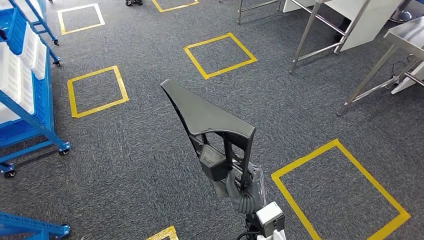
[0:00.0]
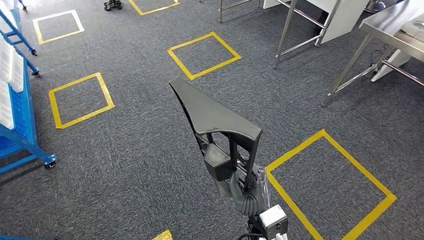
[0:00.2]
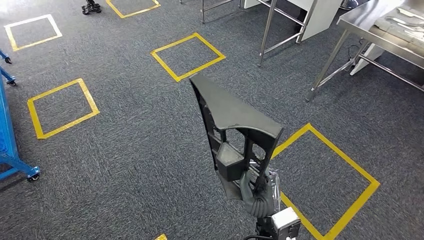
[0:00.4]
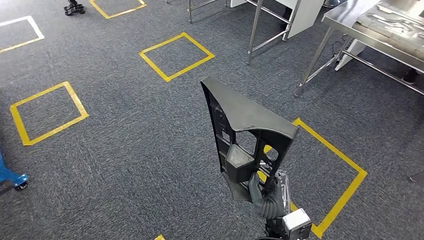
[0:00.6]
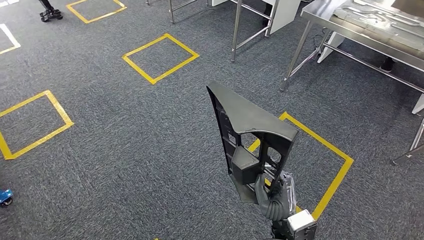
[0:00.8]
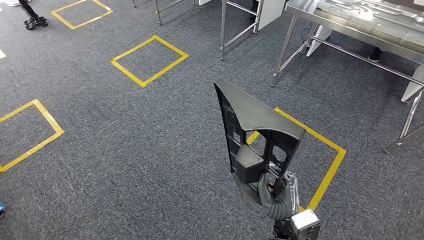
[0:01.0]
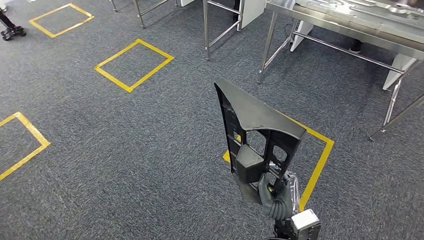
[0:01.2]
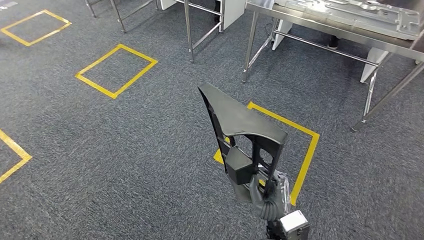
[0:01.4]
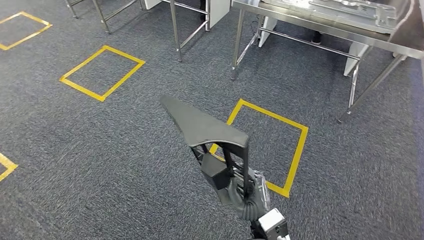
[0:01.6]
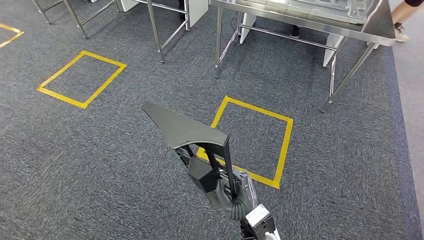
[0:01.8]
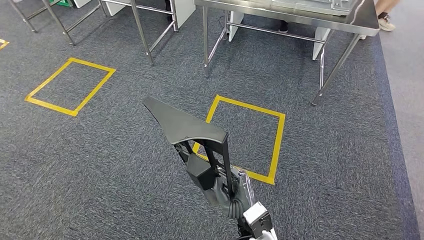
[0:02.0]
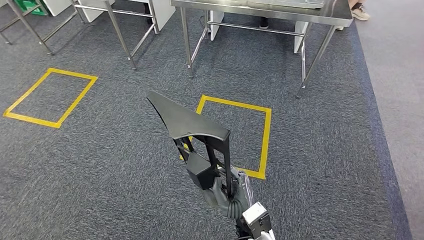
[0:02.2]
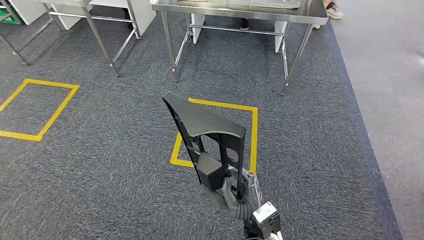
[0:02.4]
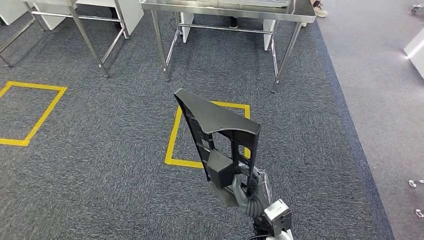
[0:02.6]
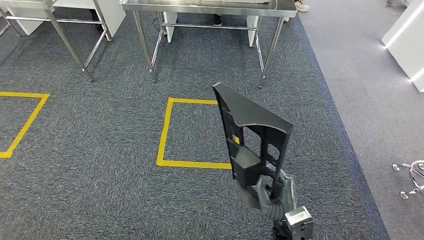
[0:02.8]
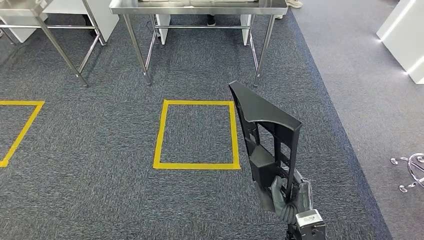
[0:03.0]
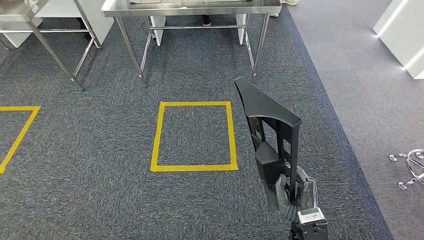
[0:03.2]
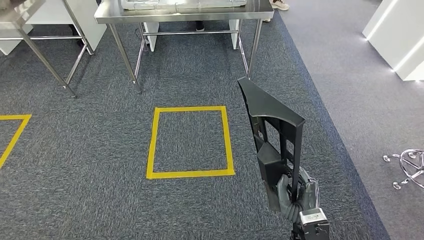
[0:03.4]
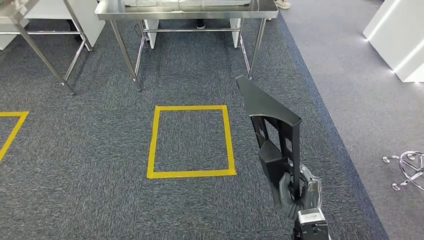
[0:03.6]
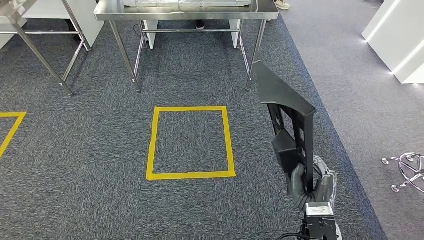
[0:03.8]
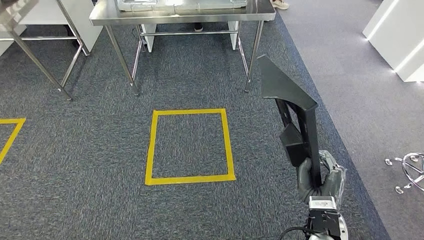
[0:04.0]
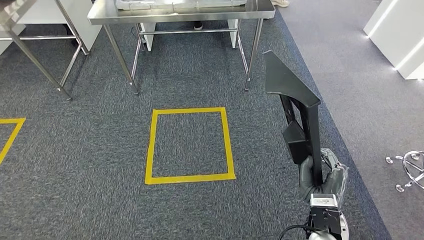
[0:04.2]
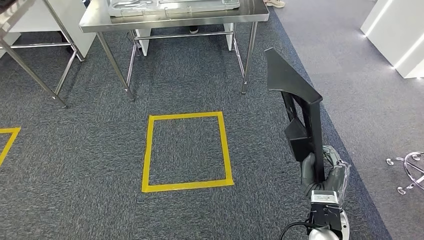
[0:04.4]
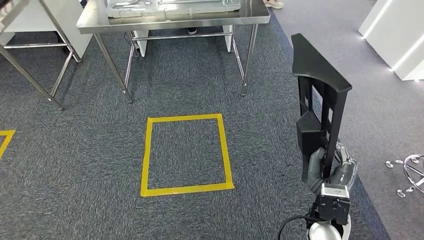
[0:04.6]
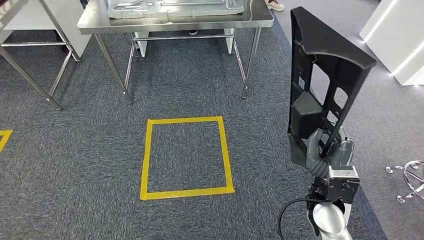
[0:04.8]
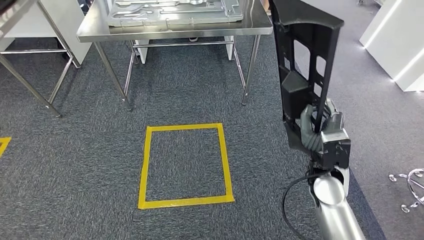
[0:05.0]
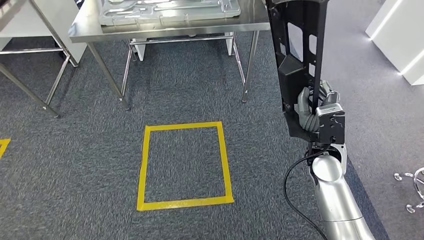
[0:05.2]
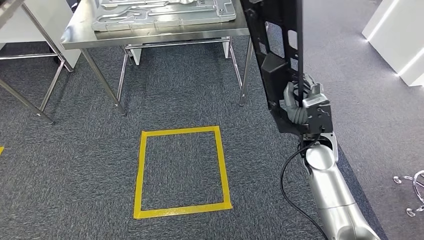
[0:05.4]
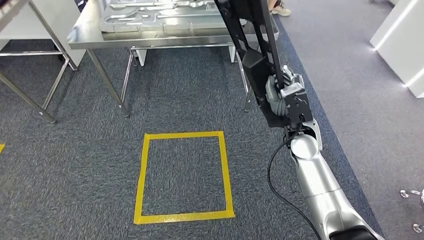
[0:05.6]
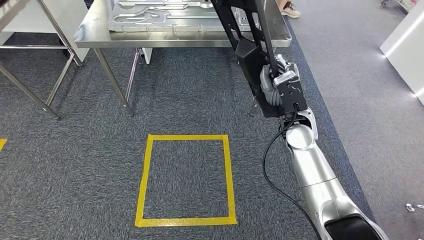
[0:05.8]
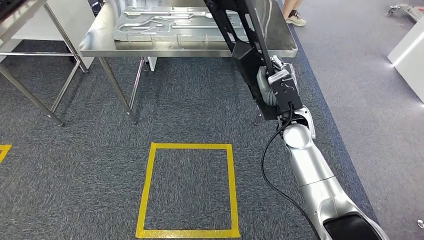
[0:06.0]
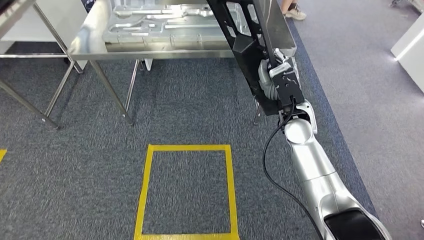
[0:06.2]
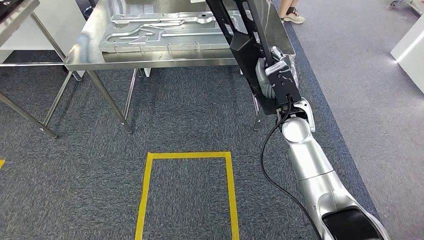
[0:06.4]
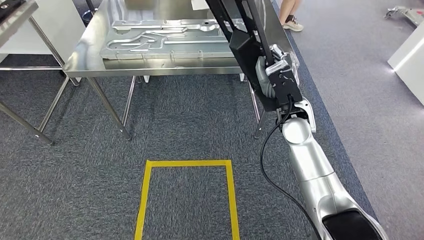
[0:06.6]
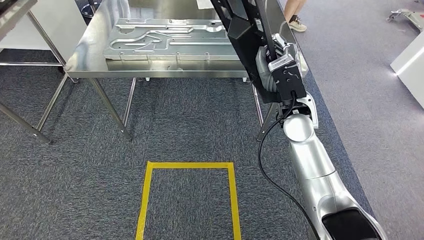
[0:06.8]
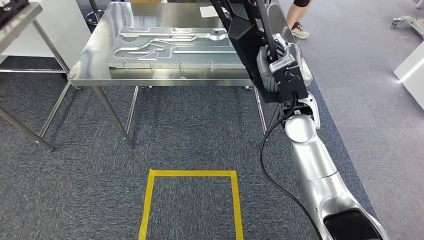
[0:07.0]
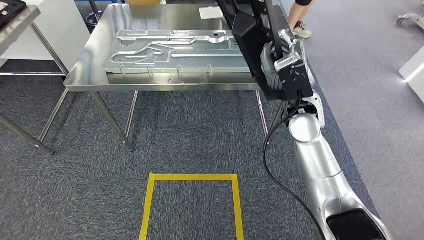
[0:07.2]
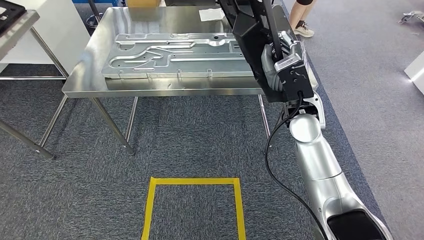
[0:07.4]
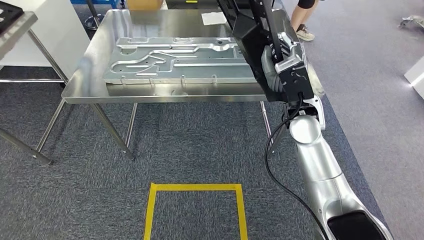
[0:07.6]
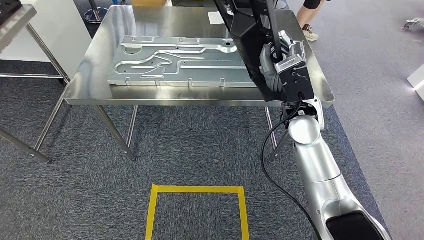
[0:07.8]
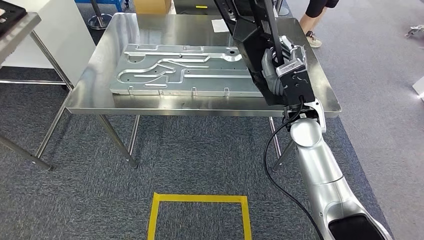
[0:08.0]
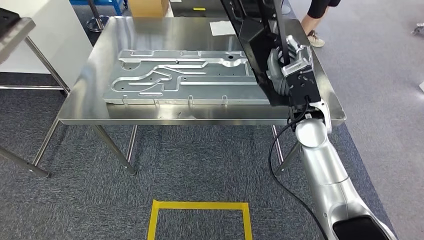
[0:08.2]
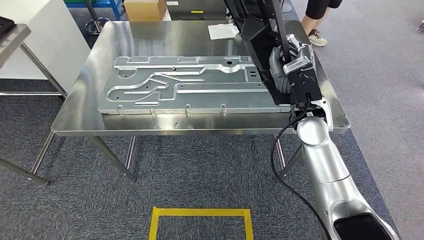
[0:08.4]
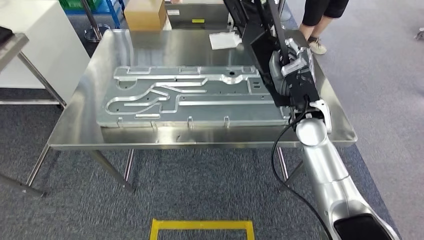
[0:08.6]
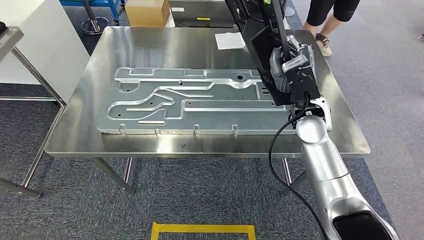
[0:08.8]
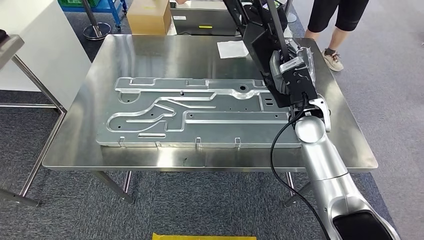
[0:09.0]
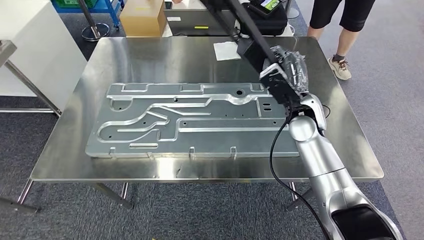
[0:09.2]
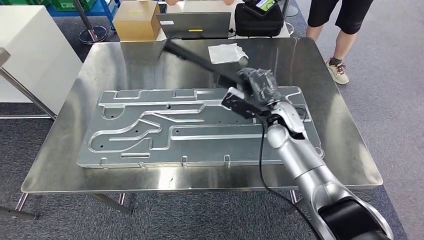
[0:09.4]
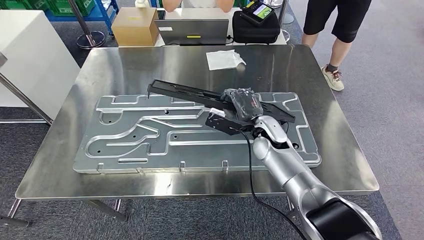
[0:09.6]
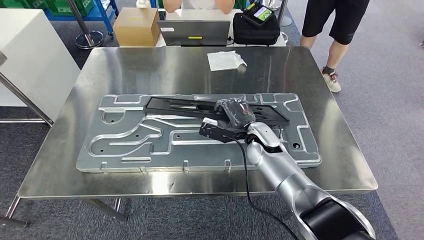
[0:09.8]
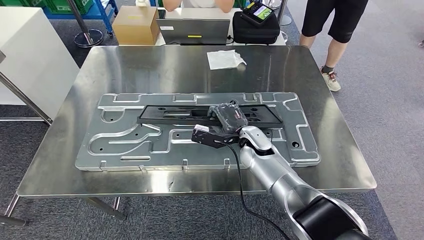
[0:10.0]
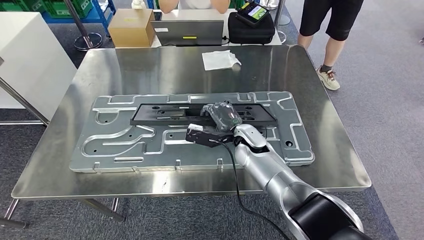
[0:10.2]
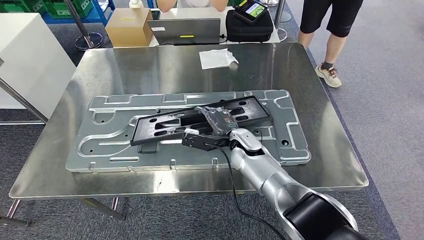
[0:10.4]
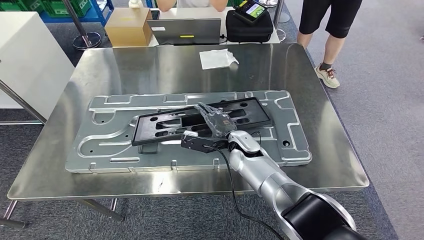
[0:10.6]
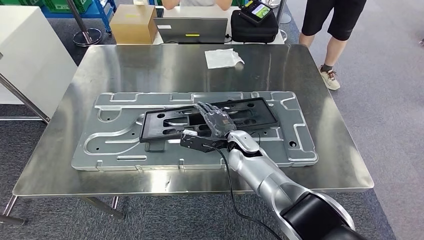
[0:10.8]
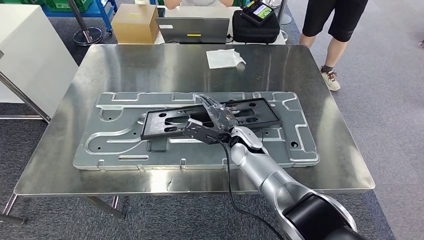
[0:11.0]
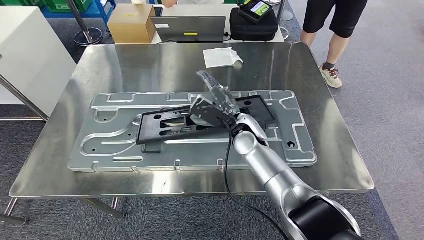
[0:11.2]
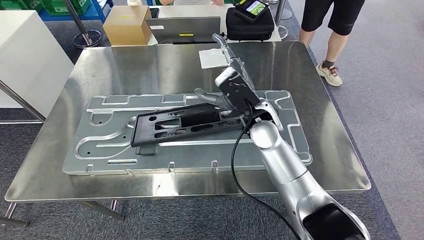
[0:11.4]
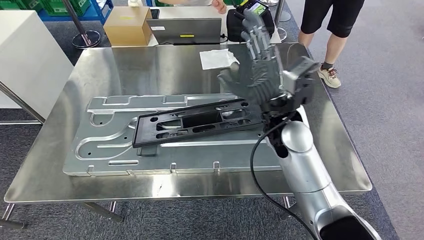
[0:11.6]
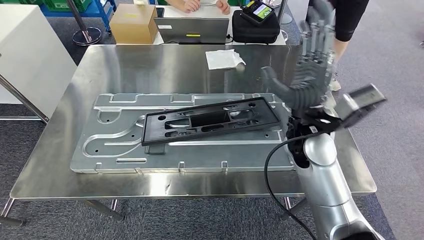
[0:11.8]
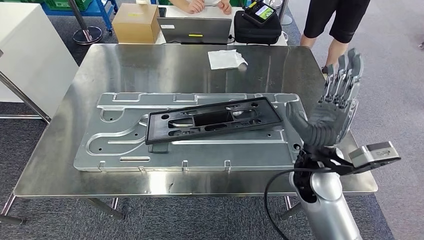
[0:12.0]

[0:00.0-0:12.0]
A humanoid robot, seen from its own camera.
Step, 0:00.0 to 0:07.8: Move the large parts to the workbench.

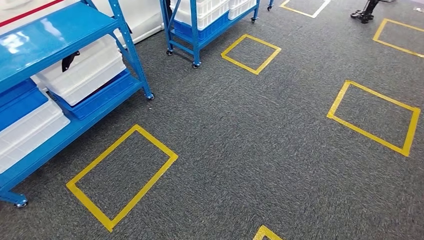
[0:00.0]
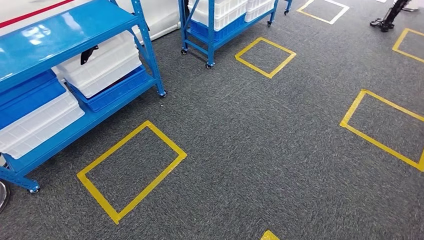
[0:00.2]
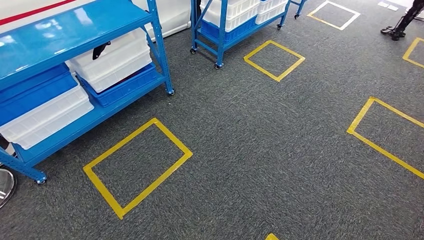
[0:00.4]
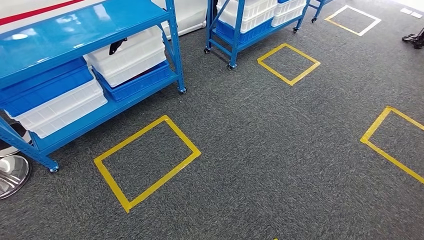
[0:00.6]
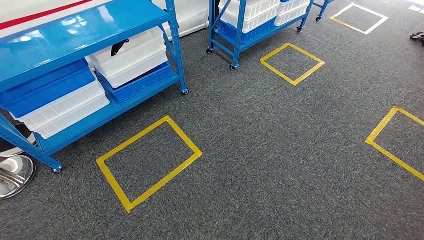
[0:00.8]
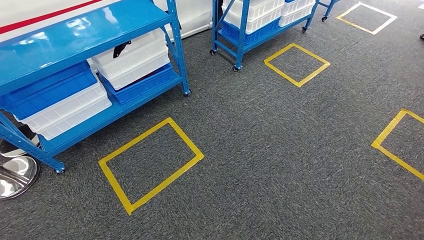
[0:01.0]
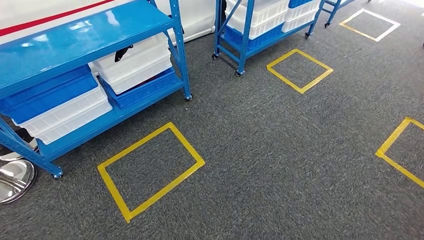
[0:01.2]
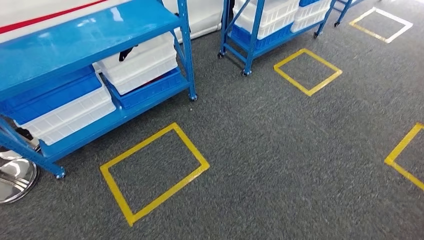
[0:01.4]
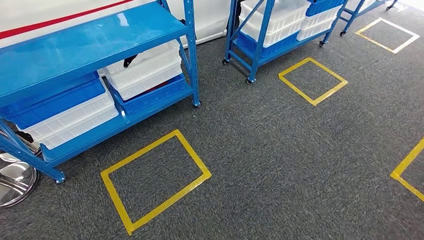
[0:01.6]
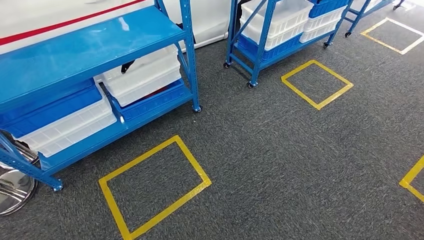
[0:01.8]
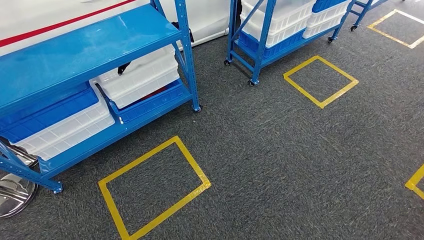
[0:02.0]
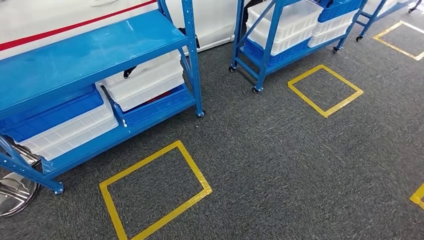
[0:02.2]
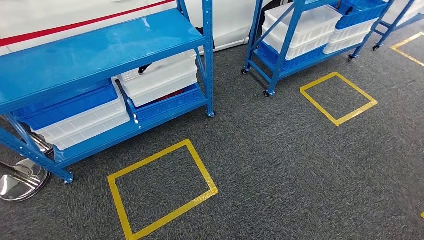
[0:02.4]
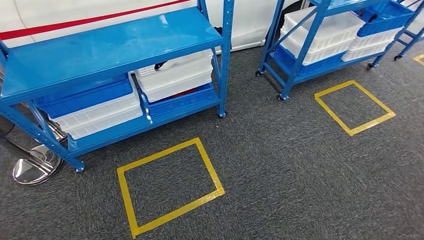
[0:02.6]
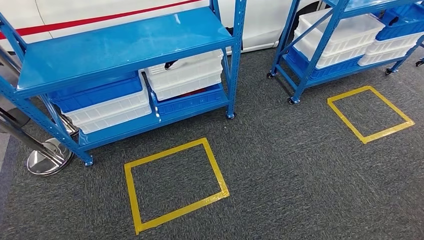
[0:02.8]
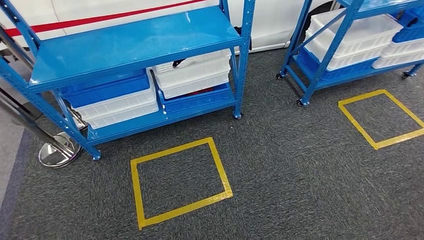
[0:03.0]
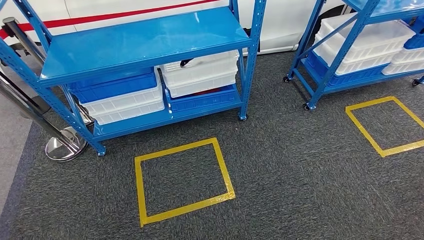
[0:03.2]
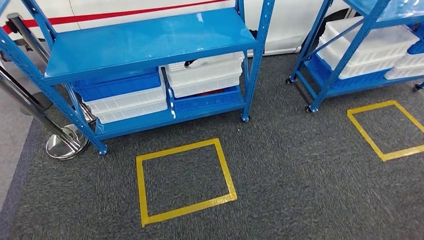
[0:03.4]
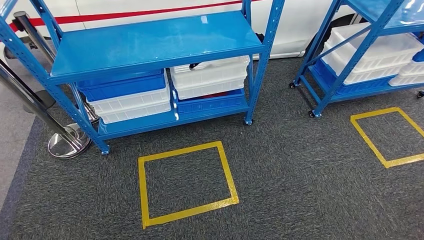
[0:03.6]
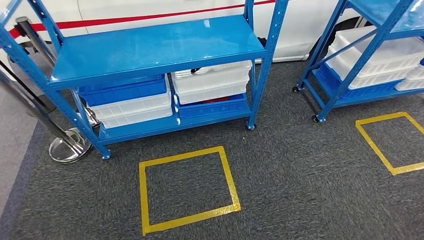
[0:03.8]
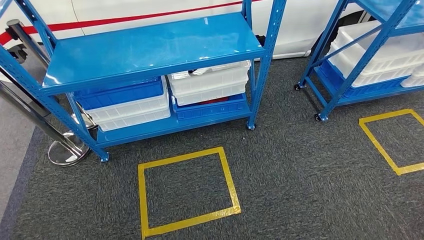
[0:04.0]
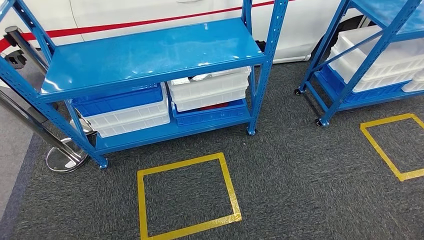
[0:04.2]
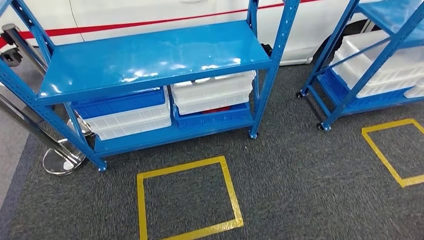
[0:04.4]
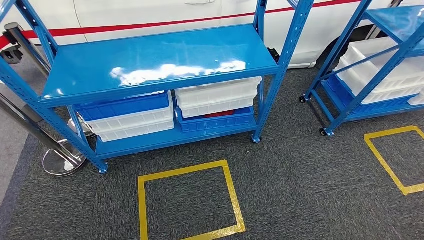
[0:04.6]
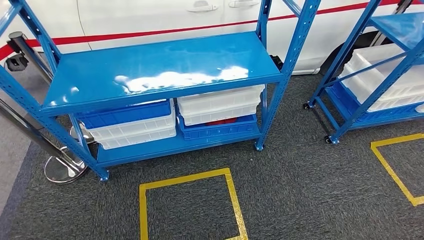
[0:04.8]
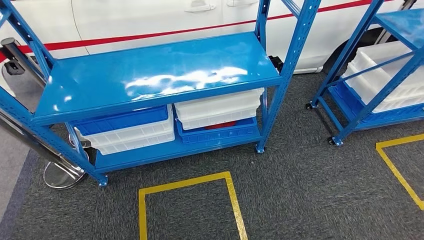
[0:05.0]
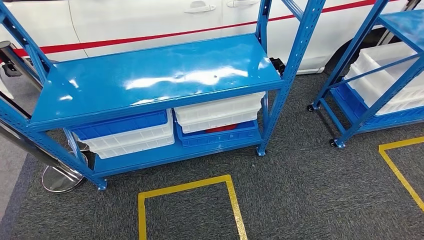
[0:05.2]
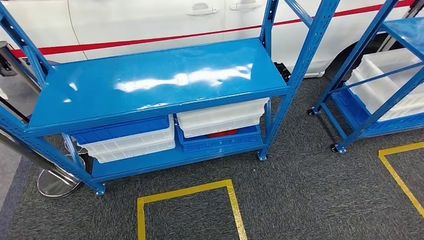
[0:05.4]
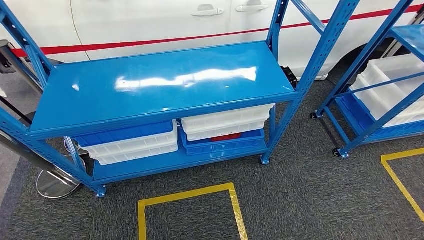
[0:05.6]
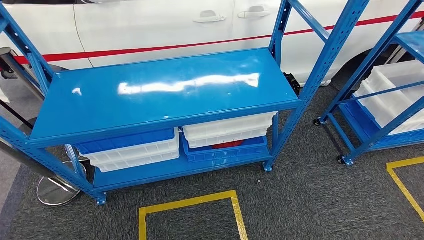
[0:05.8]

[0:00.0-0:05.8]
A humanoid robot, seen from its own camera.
Step, 0:00.0 to 0:05.8: Return to the initial position at the shelf.
